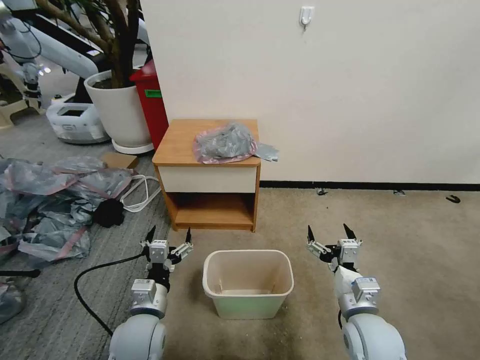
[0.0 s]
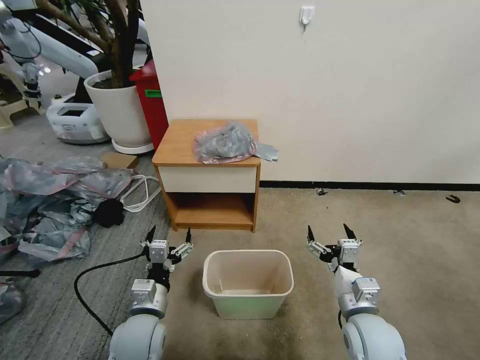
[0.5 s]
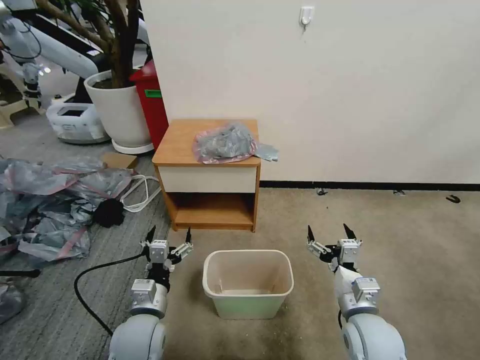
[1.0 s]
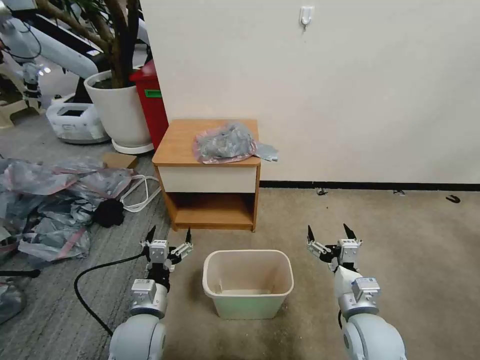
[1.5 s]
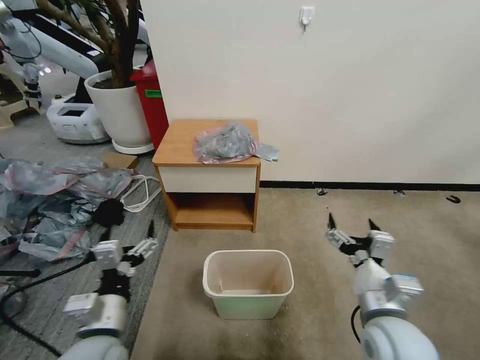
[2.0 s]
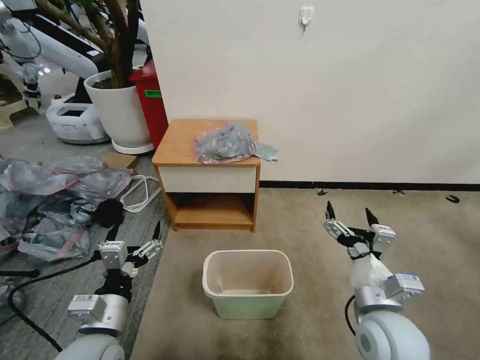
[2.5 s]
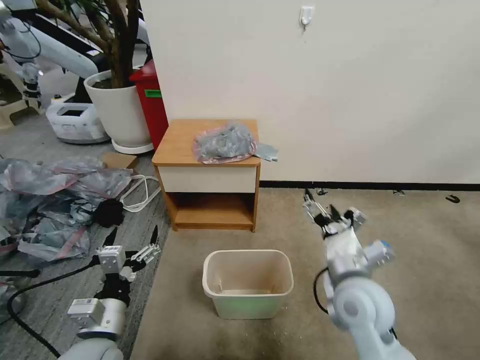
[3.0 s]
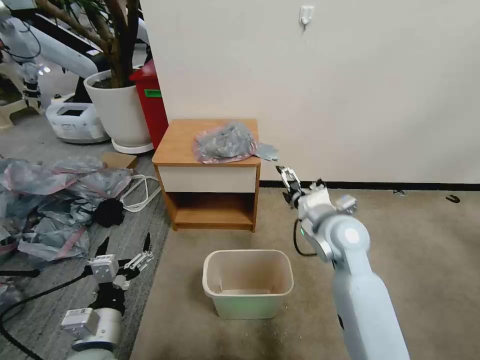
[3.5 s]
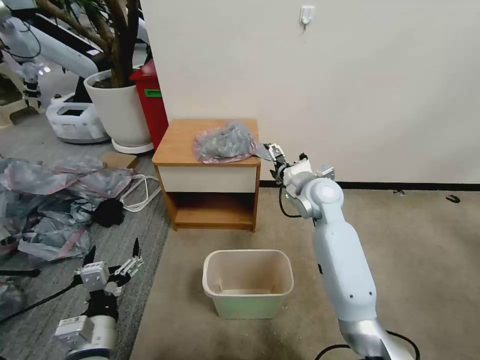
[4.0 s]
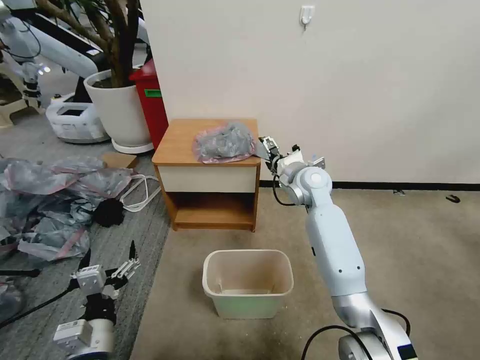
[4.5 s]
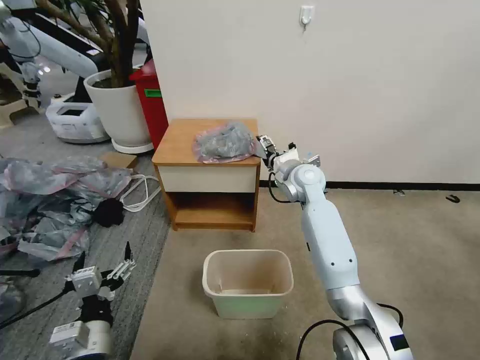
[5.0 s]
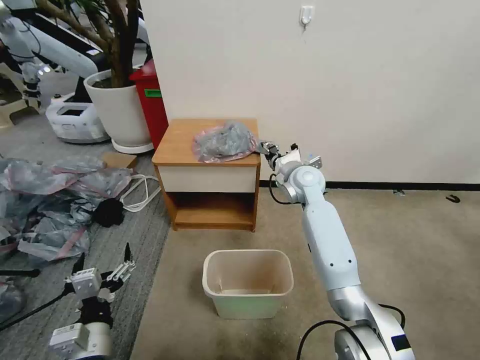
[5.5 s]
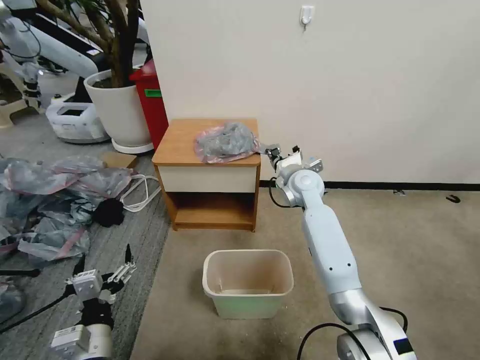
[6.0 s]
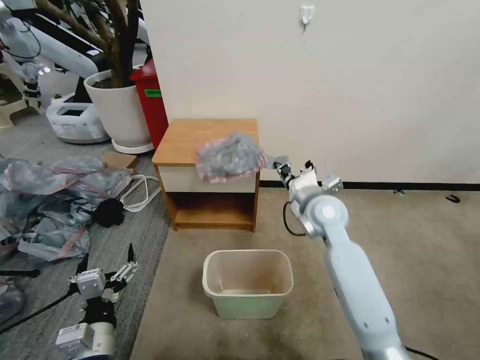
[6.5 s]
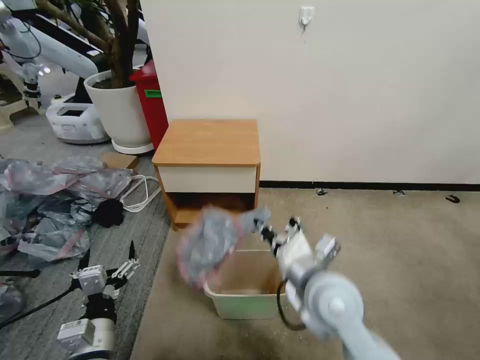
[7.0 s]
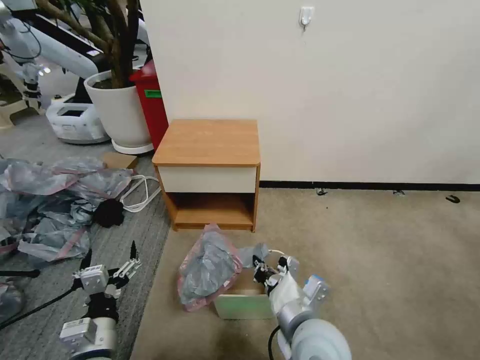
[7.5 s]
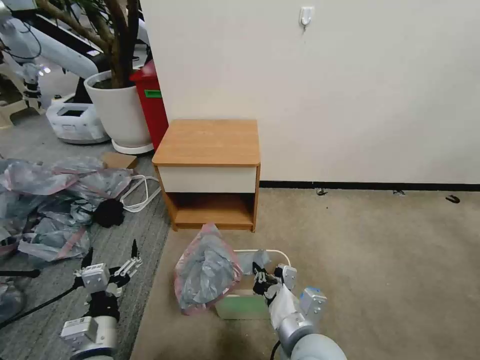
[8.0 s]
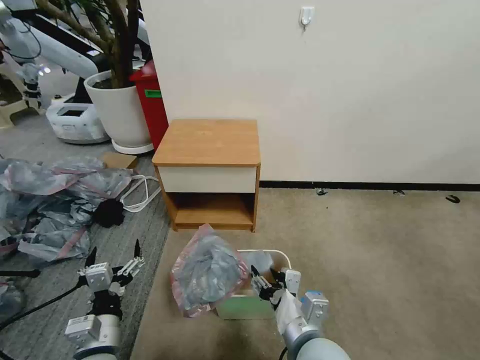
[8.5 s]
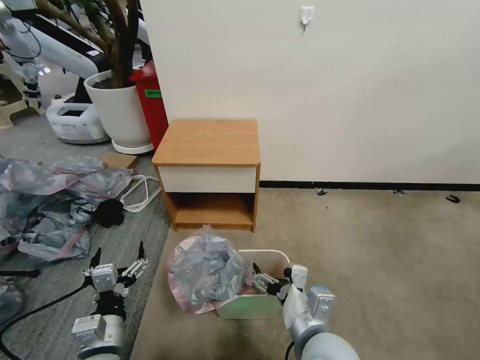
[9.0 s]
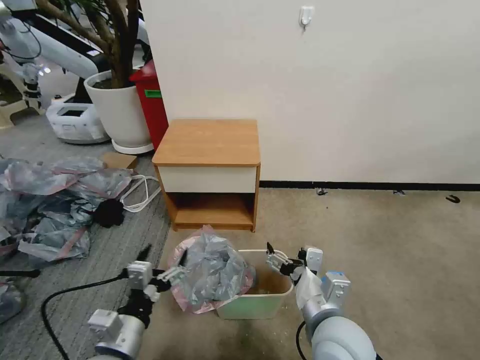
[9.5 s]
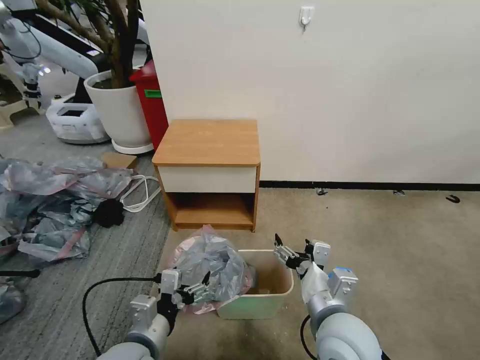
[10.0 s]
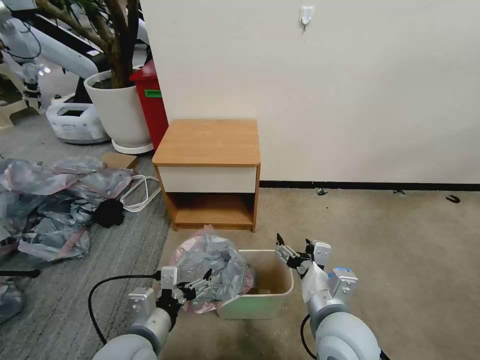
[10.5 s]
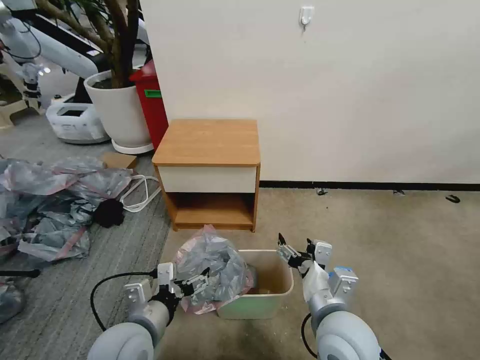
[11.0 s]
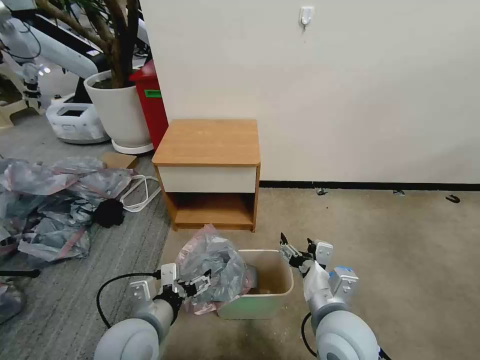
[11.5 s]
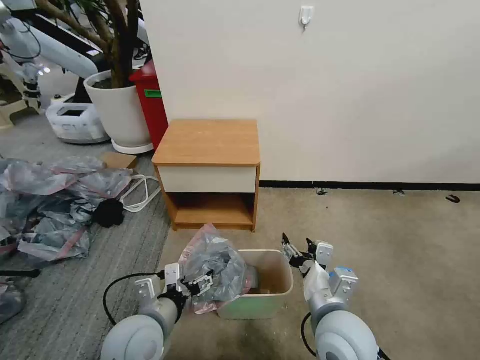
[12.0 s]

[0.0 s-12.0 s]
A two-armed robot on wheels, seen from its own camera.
Task of the whole recording: Pick up the garbage bag from the table and place it over the trash can.
2.0 to 4.0 s: The right gripper travels forward by roughly 30 cm.
4.0 to 6.0 s: The right gripper is displaced forward by about 5 cm, and closes its fingers.
6.0 to 8.0 s: The right gripper is displaced backward by approximately 35 cm.
8.0 to 10.0 s: The right gripper shifts by approximately 5 cm, and opens up. The left gripper goes about 5 cm to the right.

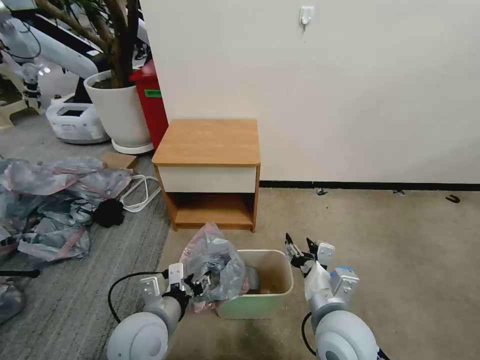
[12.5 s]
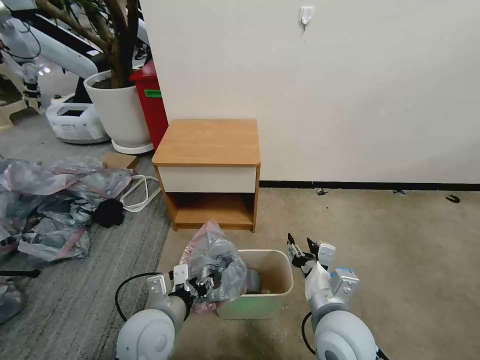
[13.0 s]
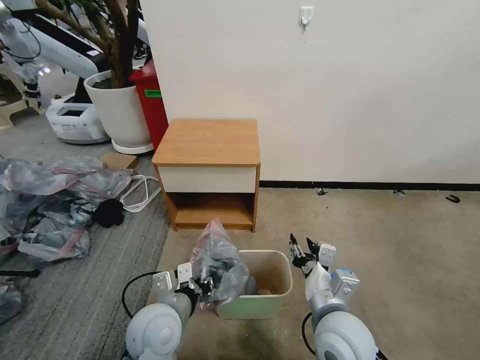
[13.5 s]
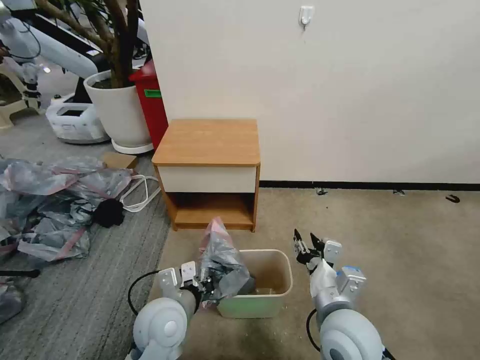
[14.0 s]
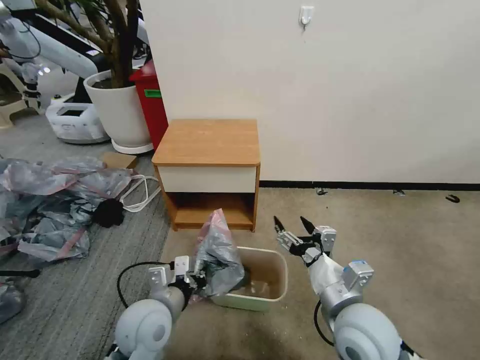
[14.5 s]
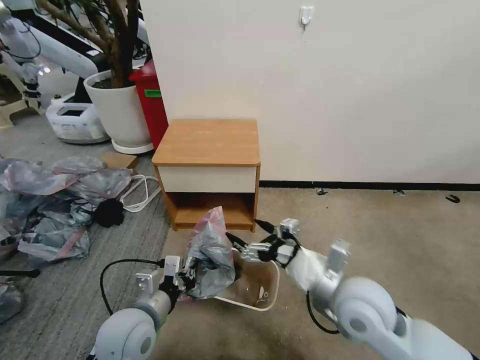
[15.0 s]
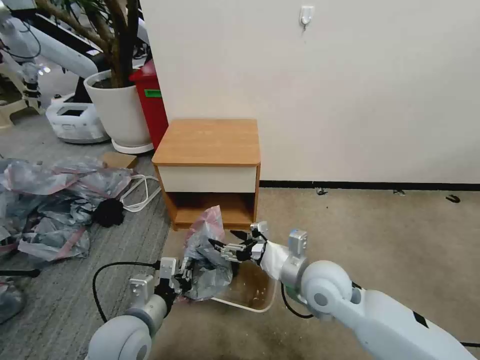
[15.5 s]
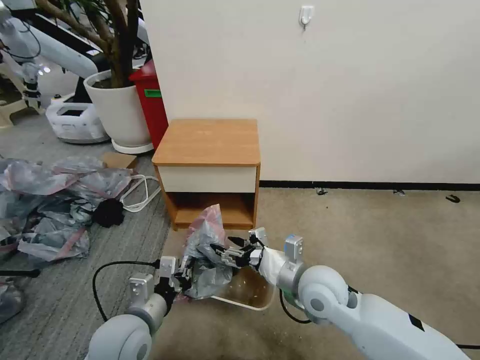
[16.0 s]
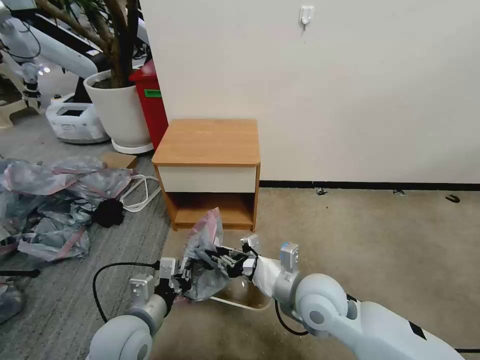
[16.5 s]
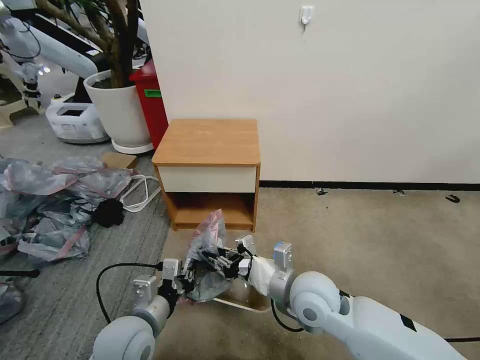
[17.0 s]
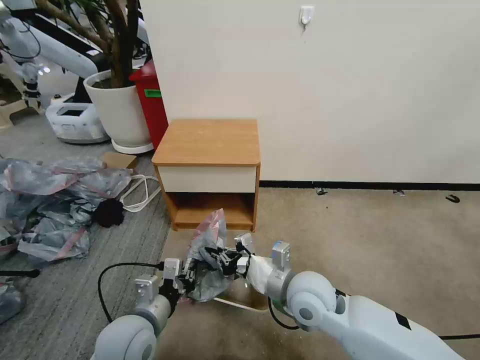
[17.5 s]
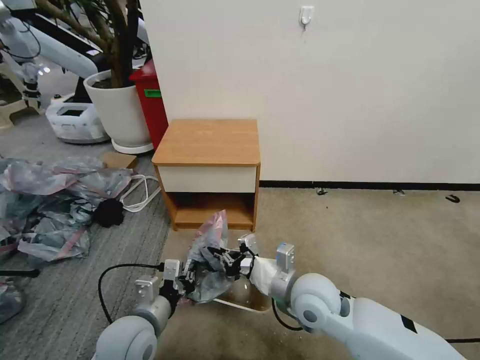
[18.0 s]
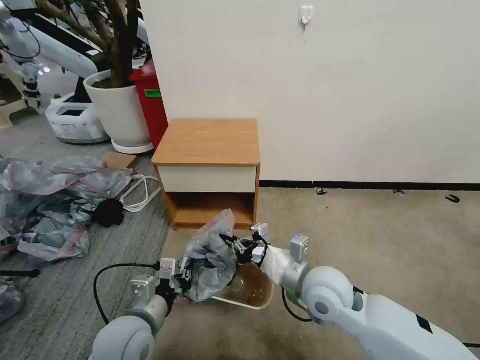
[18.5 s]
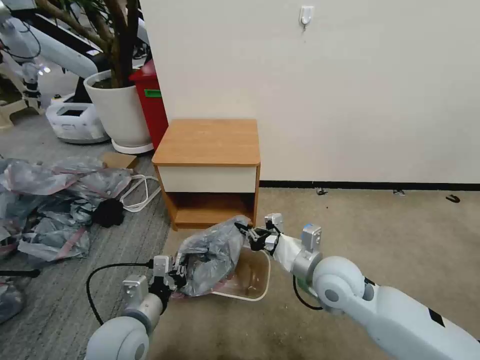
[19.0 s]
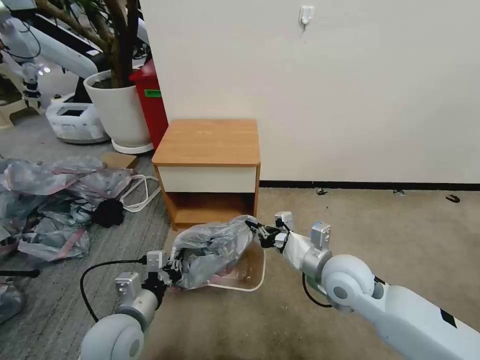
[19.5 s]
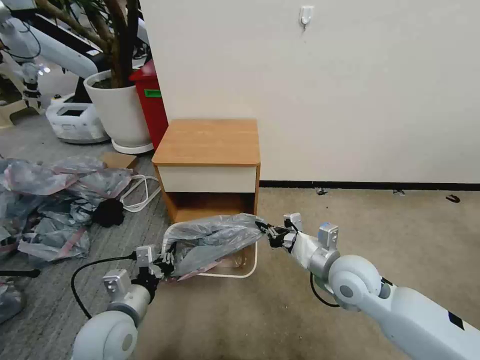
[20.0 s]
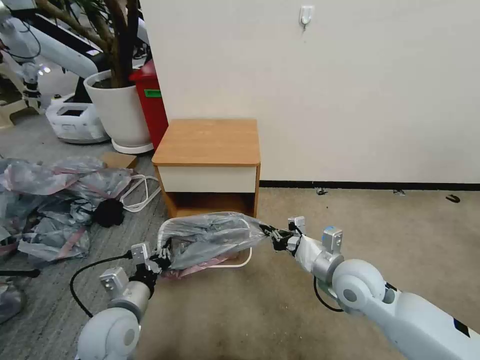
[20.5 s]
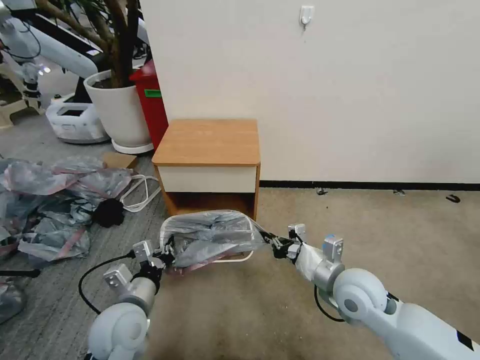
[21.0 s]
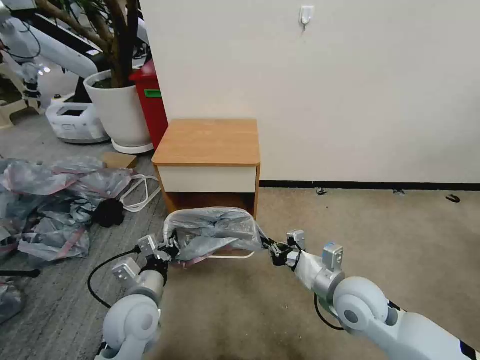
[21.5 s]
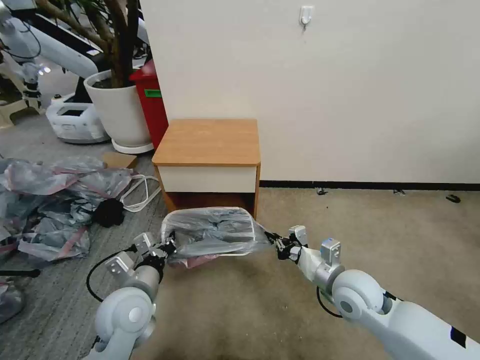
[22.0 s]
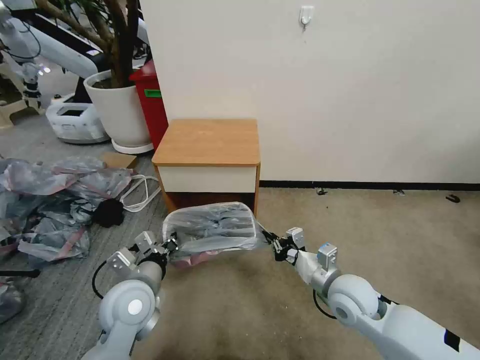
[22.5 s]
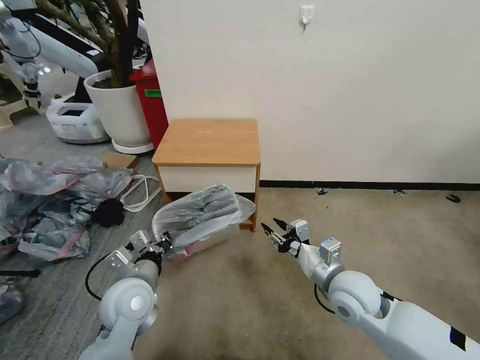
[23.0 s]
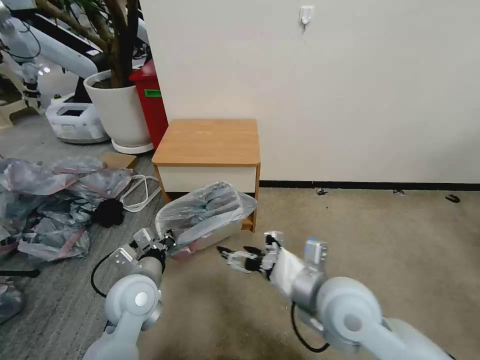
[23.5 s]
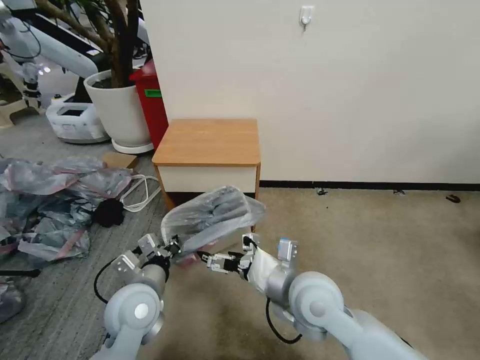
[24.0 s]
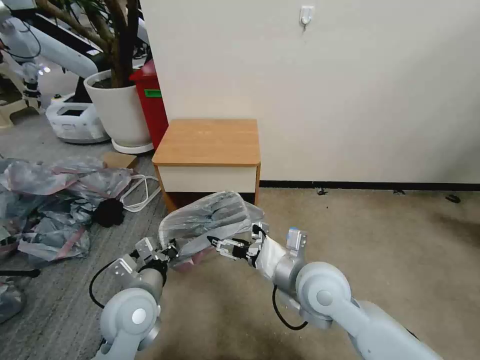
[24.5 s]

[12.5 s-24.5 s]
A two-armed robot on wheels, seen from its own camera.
Task of the whole recording: Pick up the garbage bag from the table and place it over the trash can.
12.5 to 14.5 s: The left gripper closes.
14.5 to 16.5 s: The right gripper heads forward and to the left, covering approximately 10 cm, and closes.
16.5 to 18.5 s: There are only small adjustments of the grippers.
18.5 to 20.5 s: The right gripper goes some 5 cm to the right.
20.5 to 22.5 s: The left gripper ends up approximately 5 cm from where it was.
22.5 to 24.5 s: The right gripper heads to the left and upward, covering approximately 15 cm, and opens up.

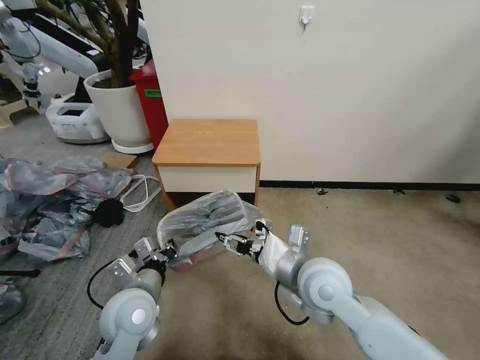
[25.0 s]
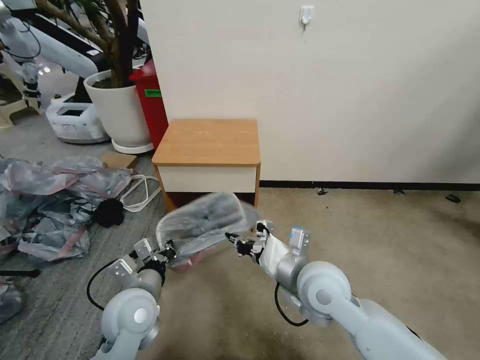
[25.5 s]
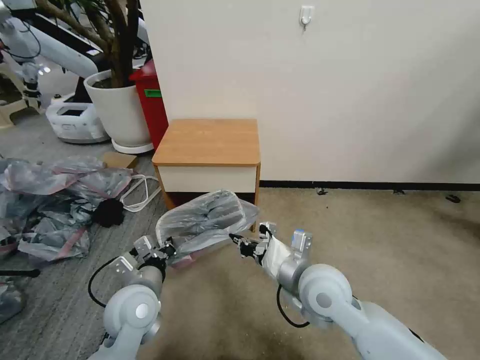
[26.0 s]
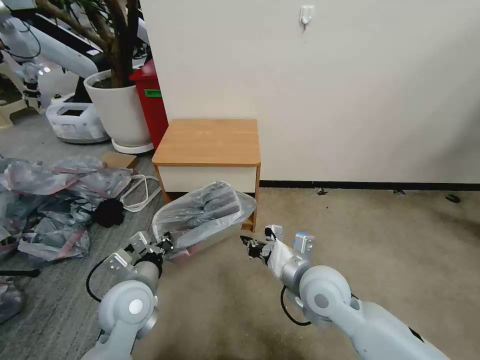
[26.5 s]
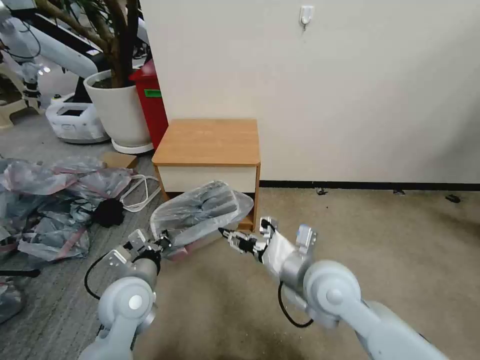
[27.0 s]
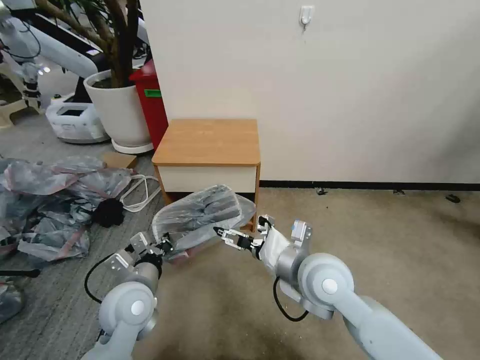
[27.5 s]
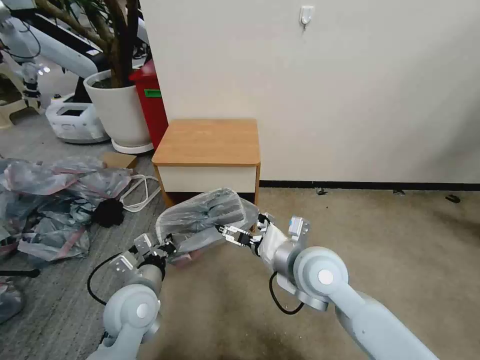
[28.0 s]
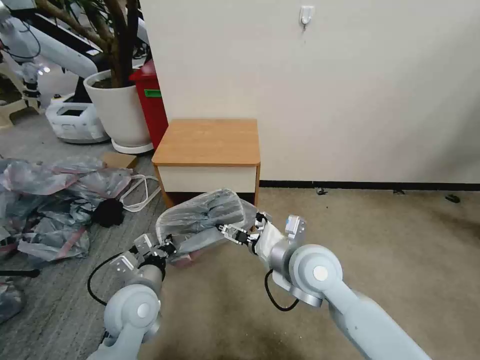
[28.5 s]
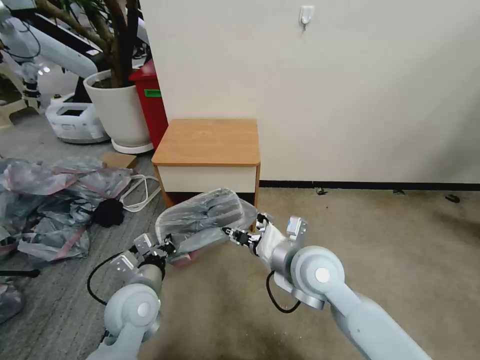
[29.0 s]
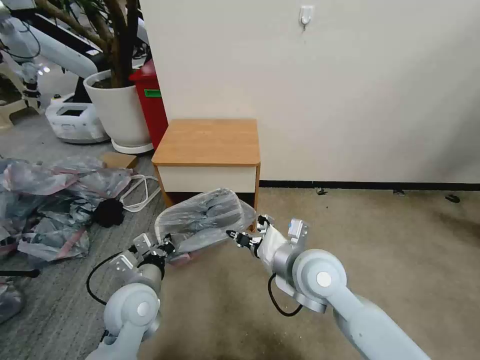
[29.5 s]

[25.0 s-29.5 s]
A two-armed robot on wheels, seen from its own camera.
Task of the whole recording: Pick up the garbage bag from the table and place it over the trash can.
25.0 to 27.0 s: The right gripper closes, then reopens.
27.0 to 29.5 s: The right gripper closes up.
